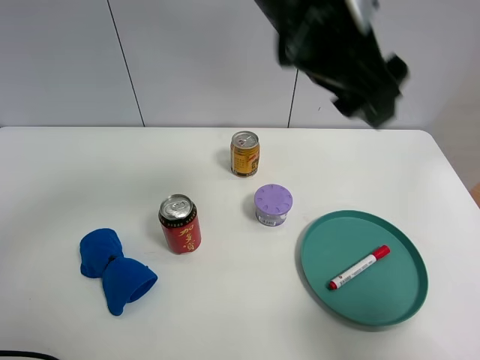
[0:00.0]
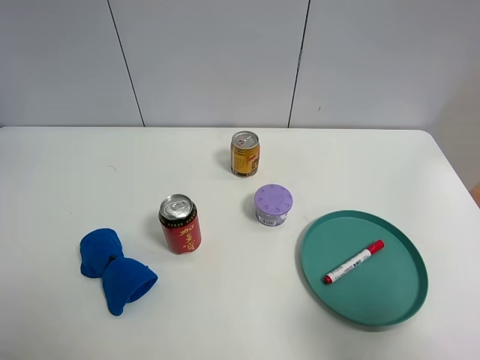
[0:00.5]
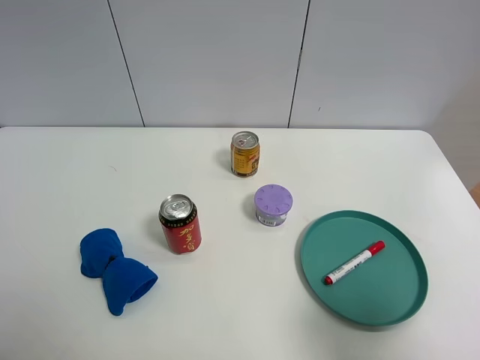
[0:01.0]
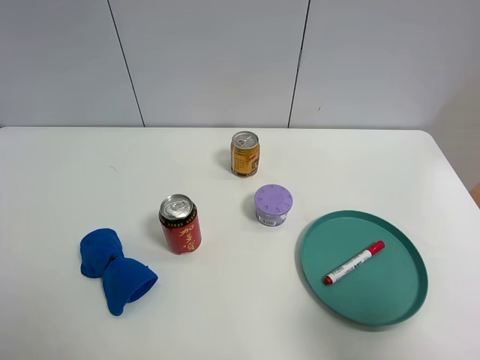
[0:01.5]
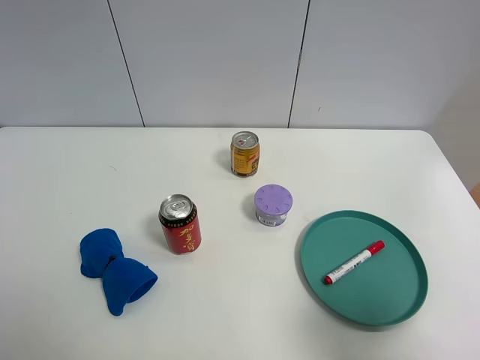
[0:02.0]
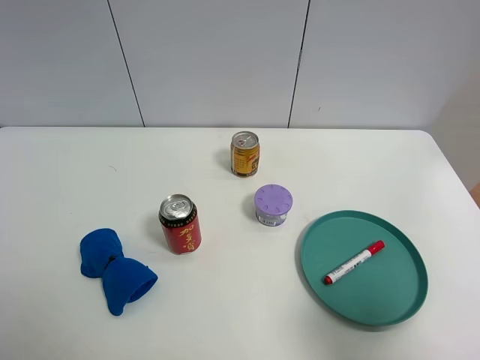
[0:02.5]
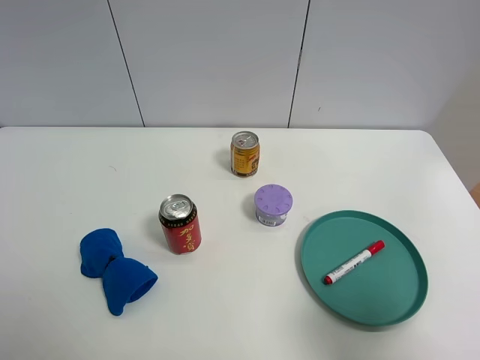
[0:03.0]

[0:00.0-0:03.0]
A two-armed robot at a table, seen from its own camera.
Task of the whole recording: the gripper move the object.
0:00.0 to 0:01.5: The left gripper goes some 50 cm to the left and backward.

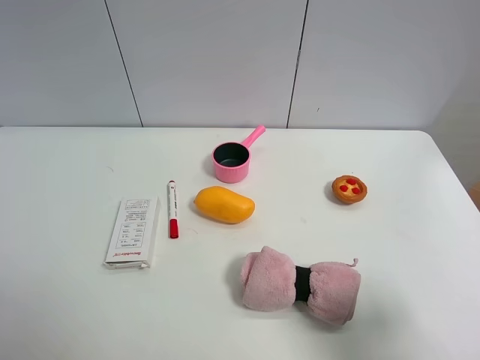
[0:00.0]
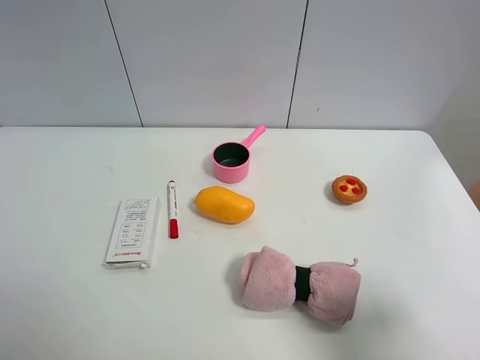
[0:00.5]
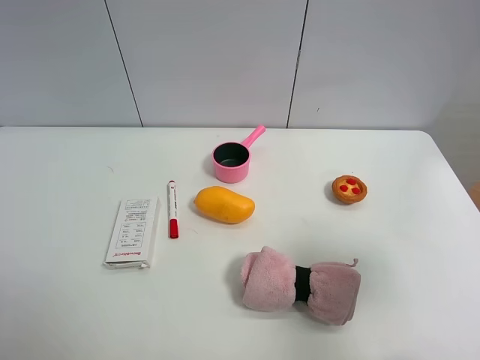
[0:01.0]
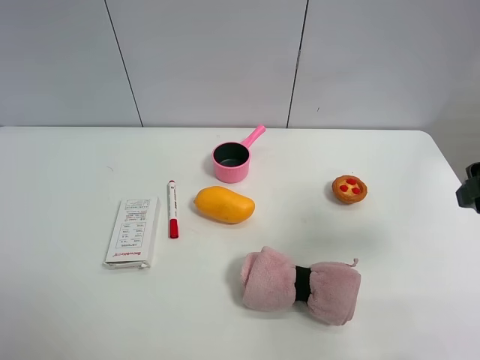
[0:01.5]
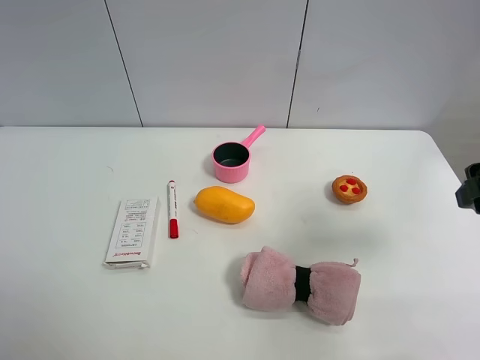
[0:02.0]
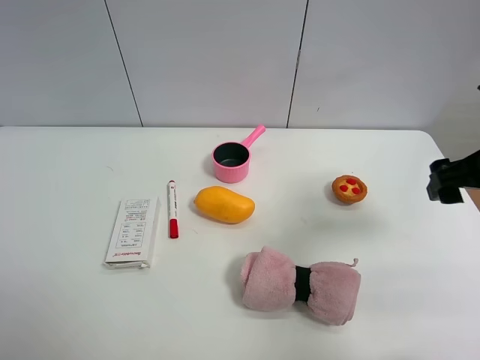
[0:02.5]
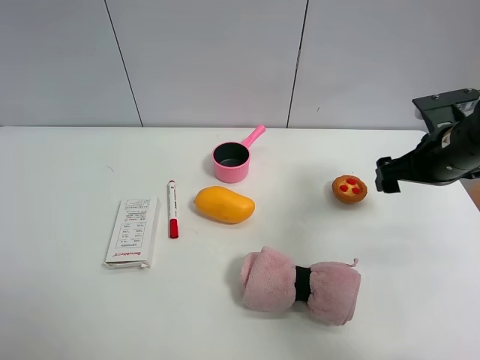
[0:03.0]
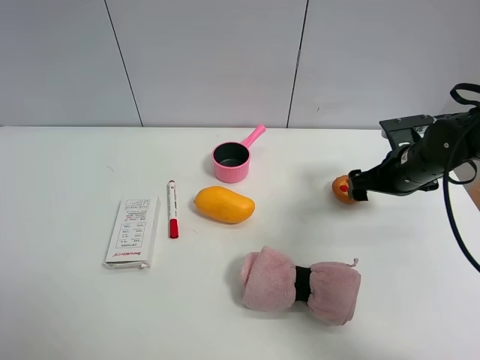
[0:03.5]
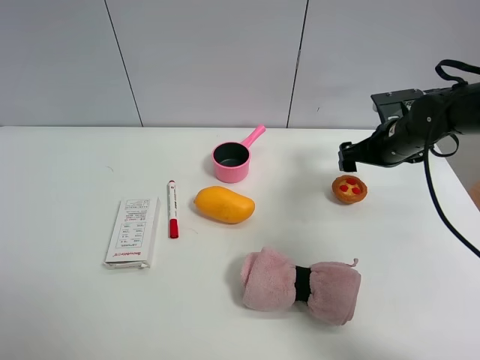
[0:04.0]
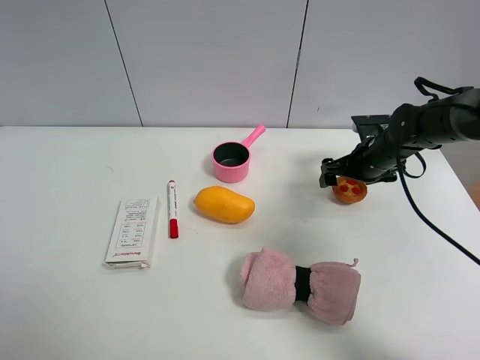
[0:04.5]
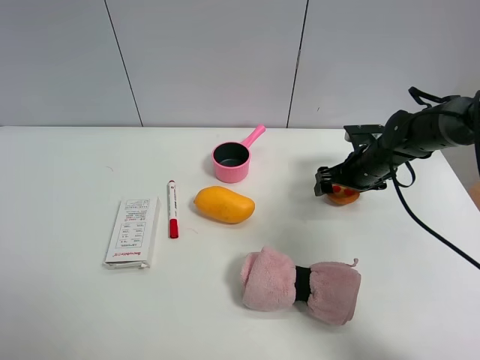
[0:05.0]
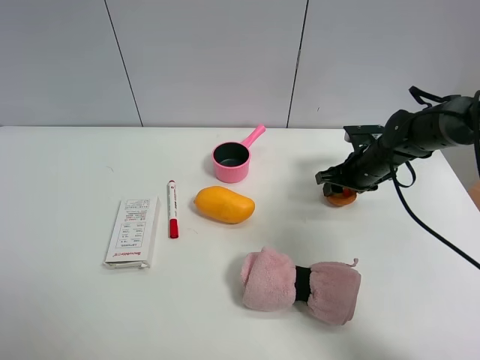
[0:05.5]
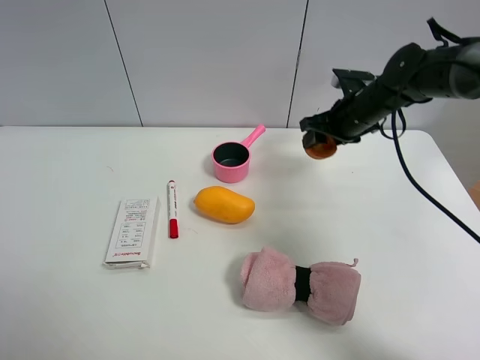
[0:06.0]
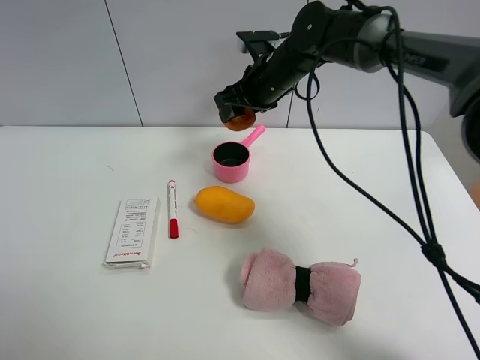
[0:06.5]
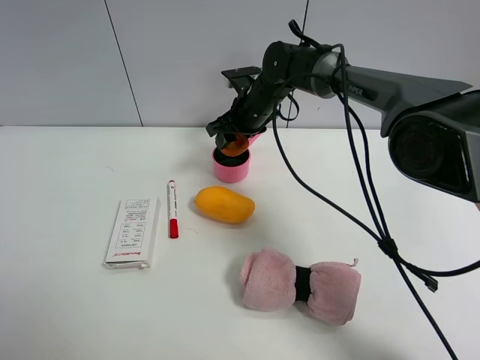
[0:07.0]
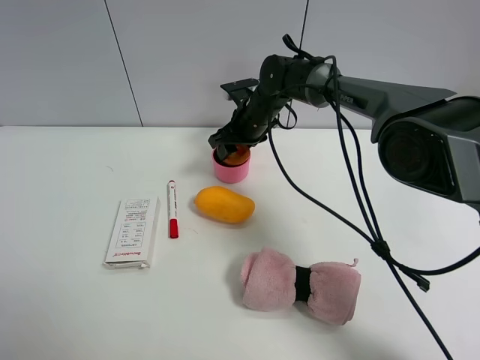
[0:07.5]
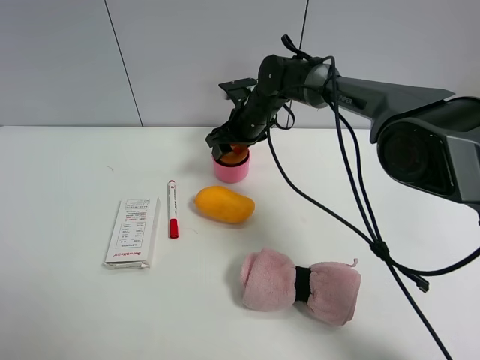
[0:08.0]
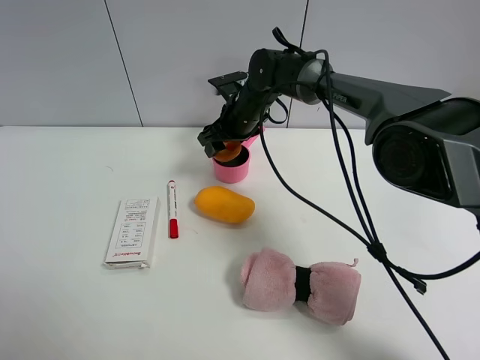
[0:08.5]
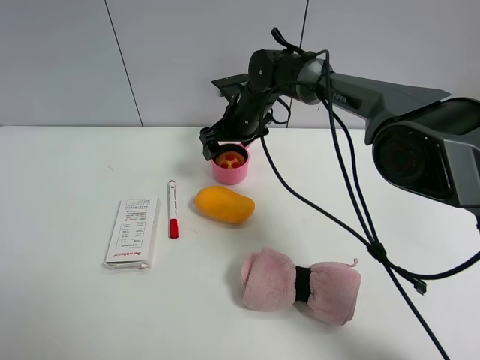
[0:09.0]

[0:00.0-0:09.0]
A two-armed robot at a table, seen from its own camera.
Task of the whole recording: the gripper move the object.
Step, 0:00.0 to 0:05.0: Grasp the egg tart with the right gripper.
0:00.0 to 0:02.0: The right gripper moves forward, some 15 cm.
0:02.0 to 0:04.5: The right gripper shifts approximately 30 cm forward and downward.
0:04.5 to 0:07.0: The right gripper travels to the left by roughly 20 cm, and closes.
0:07.0 to 0:09.0: The right gripper opens up.

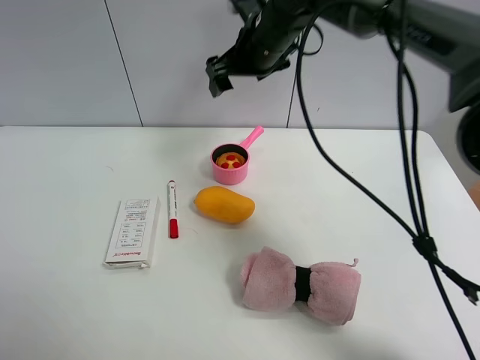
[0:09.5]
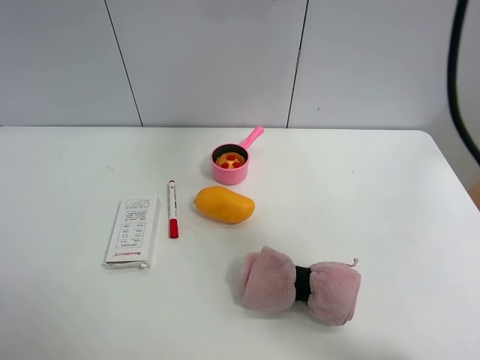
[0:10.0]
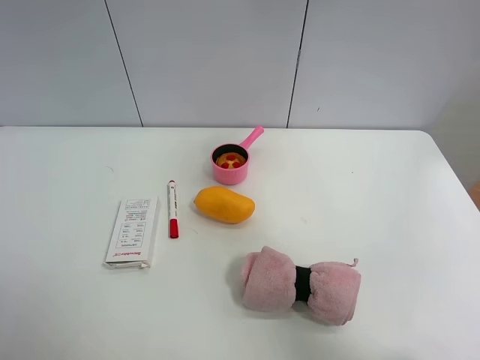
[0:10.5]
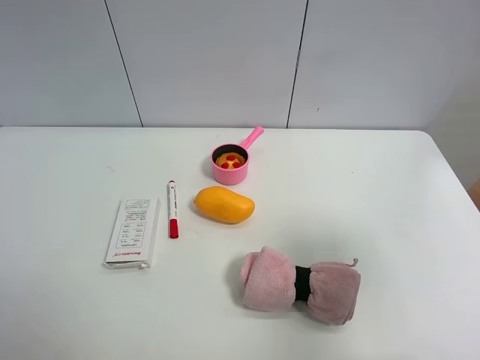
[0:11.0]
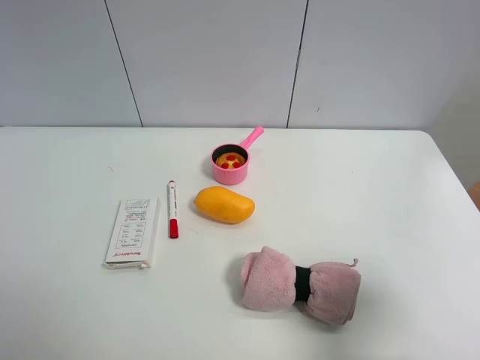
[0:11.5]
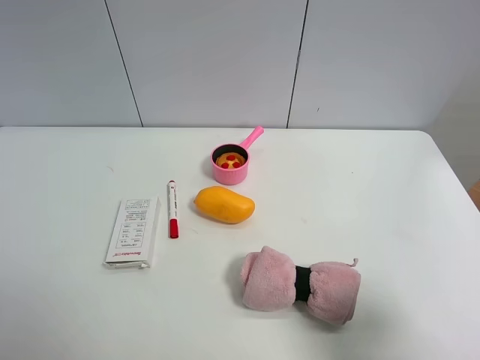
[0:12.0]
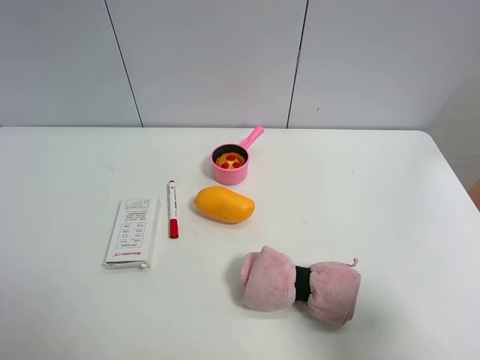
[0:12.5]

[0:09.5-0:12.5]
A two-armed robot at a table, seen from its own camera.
Task of the whole recording: the gripper move the object.
0:09.5 to 0:11.0: The right gripper heads backward and to the right, covering about 40 cm.
0:11.0 to 0:12.5: The right gripper shifts roughly 10 cm downward and backward.
